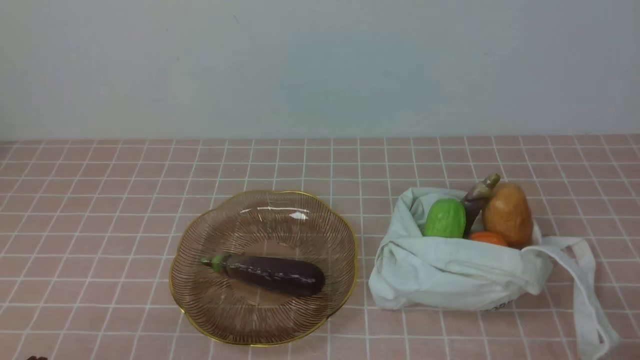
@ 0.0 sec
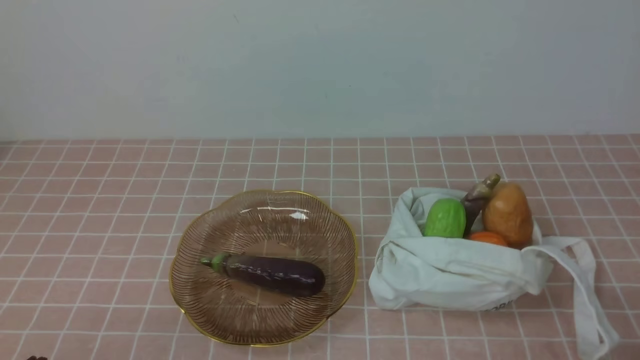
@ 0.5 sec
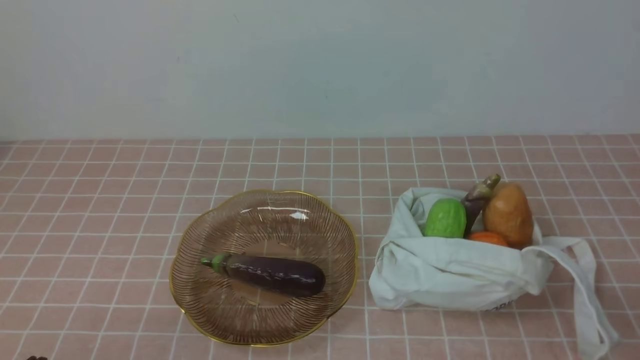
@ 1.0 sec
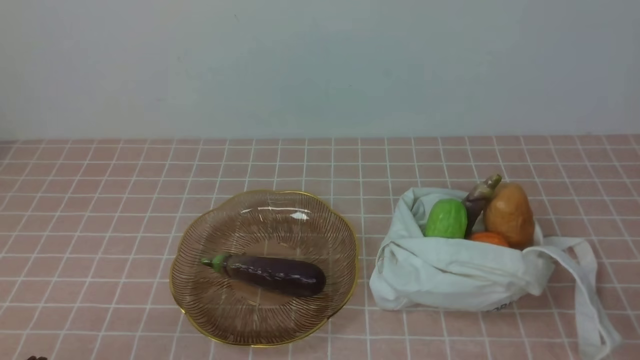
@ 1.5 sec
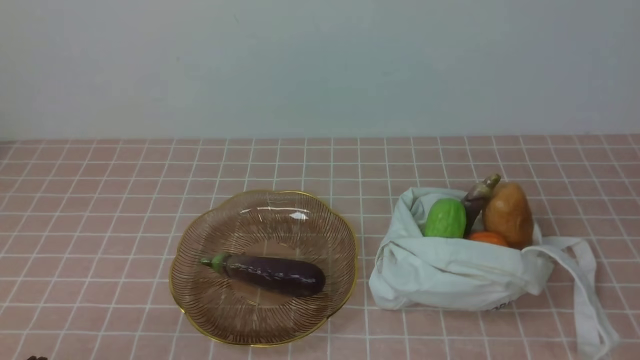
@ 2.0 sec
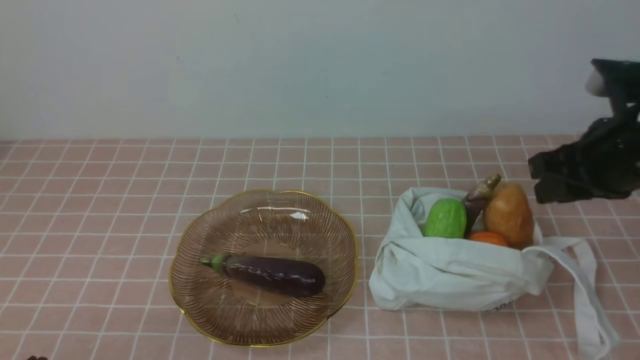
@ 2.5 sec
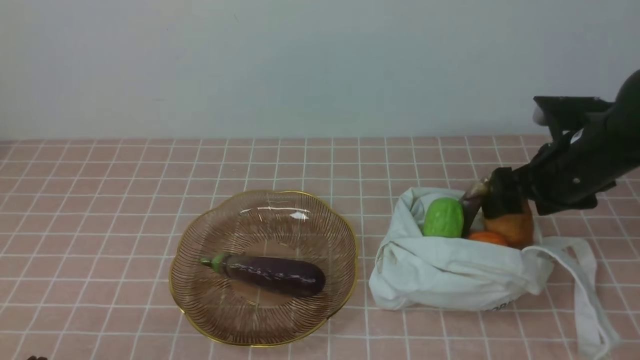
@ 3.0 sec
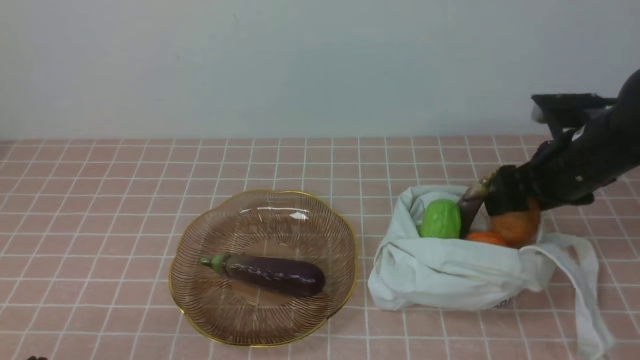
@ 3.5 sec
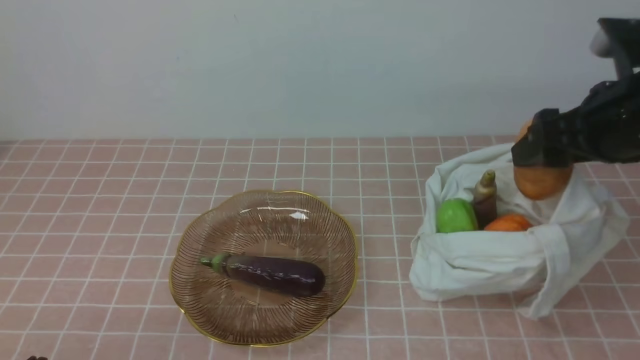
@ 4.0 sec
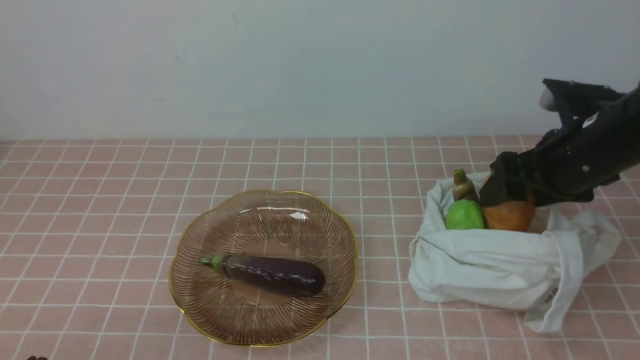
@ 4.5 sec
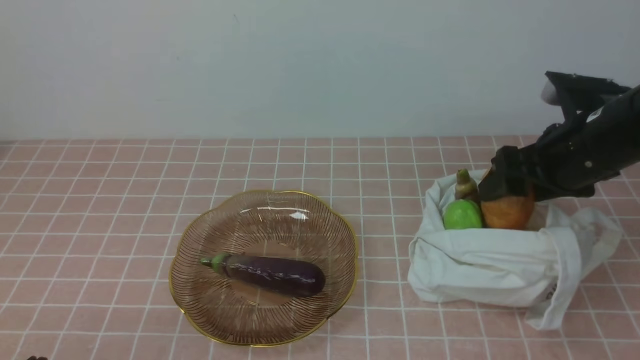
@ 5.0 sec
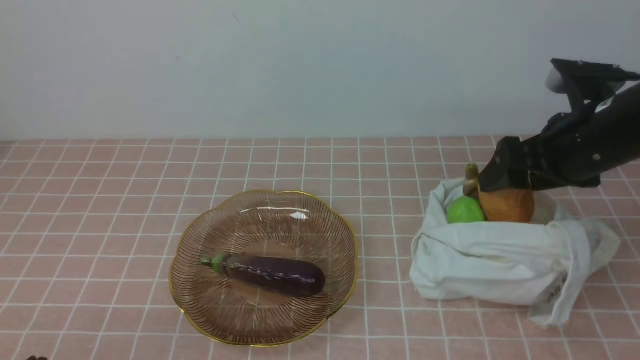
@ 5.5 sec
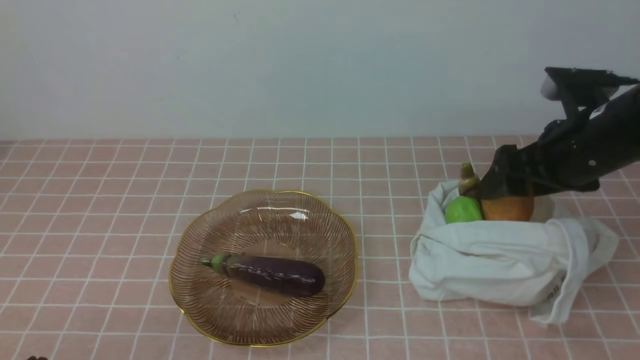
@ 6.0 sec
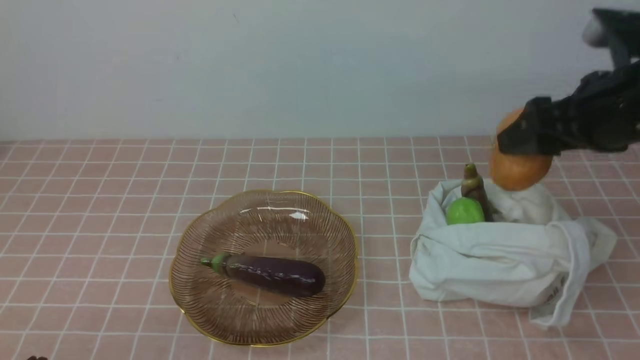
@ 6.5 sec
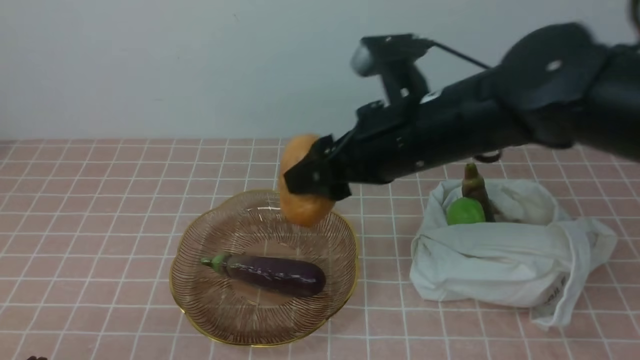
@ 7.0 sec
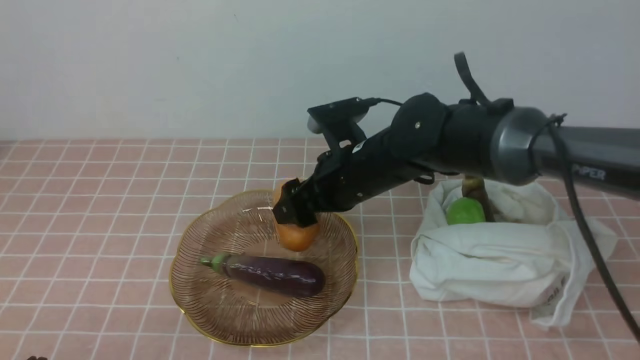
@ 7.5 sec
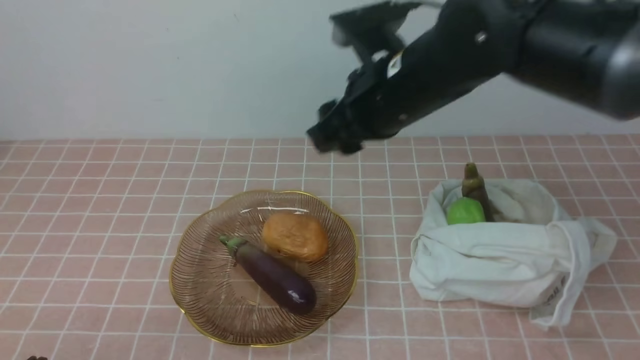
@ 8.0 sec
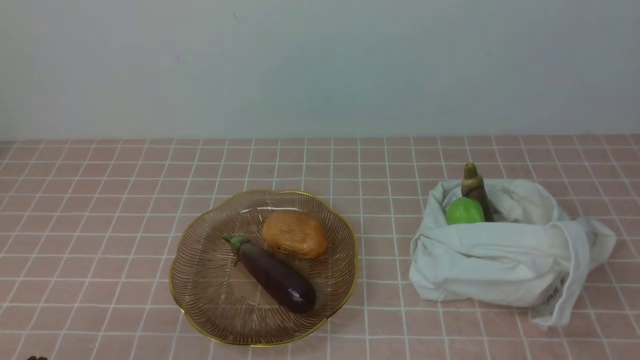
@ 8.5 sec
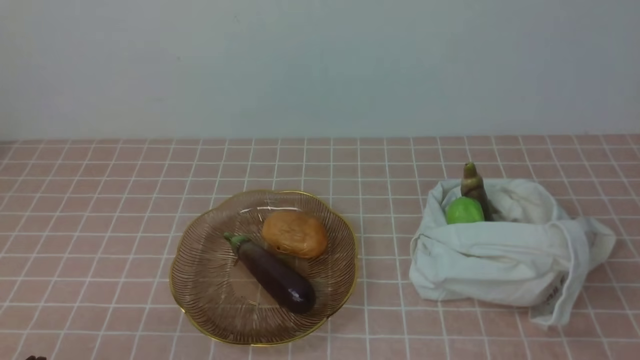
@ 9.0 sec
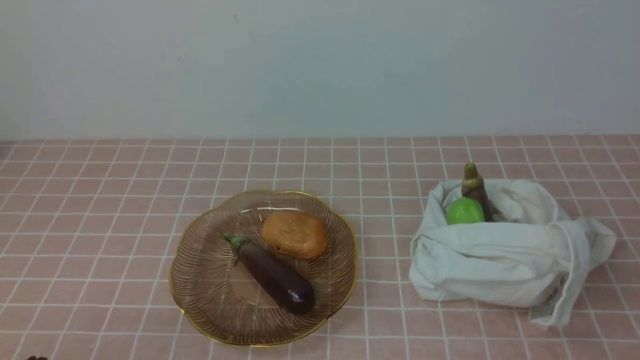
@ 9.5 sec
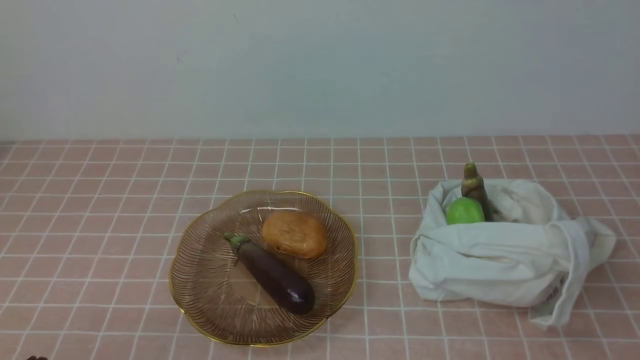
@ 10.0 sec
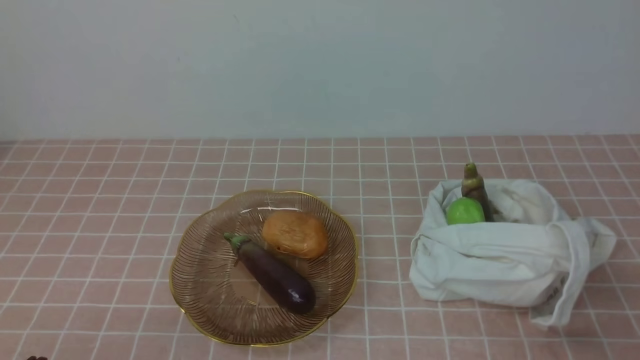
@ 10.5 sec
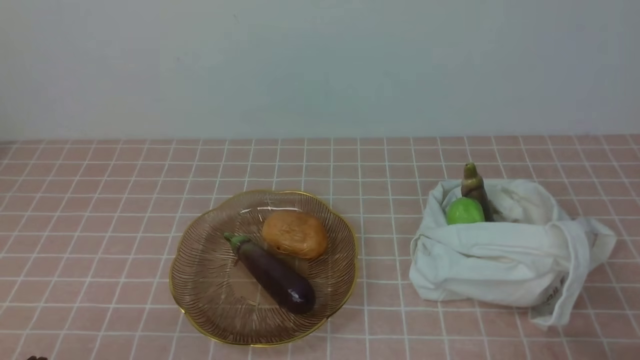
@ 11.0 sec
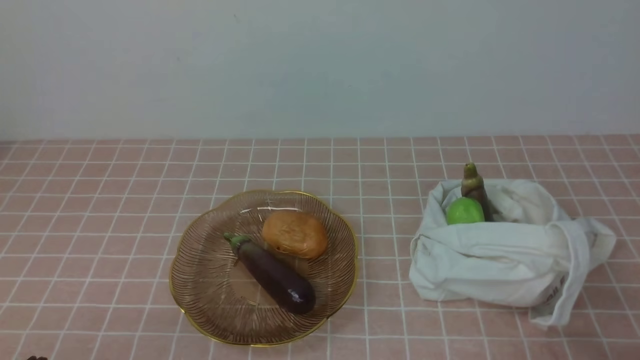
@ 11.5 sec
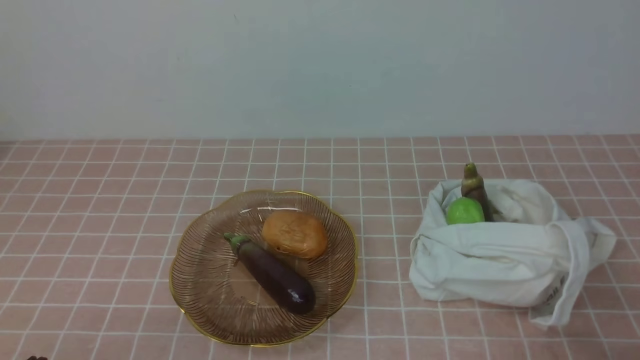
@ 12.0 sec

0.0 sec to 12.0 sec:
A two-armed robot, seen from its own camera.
Task of the whole recording: take vegetables from bag on pink coffee tablecloth place on plate.
Step, 0.0 sec to 3.0 sec: Grasp the potato with right gripper.
Step, 3.5 sec to 7.5 sec: Place the potato on the plate with right gripper.
2.0 sec to 4.0 sec: The right gripper travels forward by approximately 20 cm, and opens its fingers.
4.0 sec to 6.0 sec: The grippers stay close to where they were, moving slightly.
6.0 sec to 8.0 sec: The right gripper shifts approximately 20 cm to the left.
8.0 sec to 10.0 sec: The right gripper goes roughly 40 cm backward and to the right, and closes its fingers.
